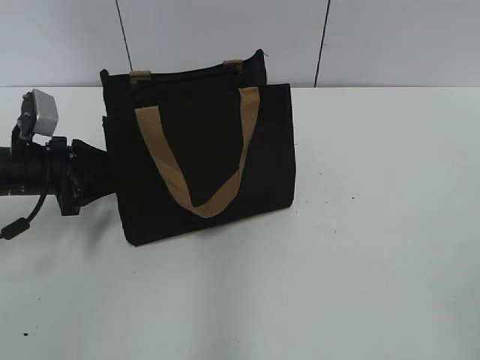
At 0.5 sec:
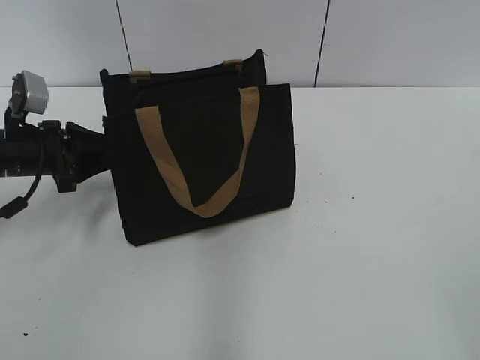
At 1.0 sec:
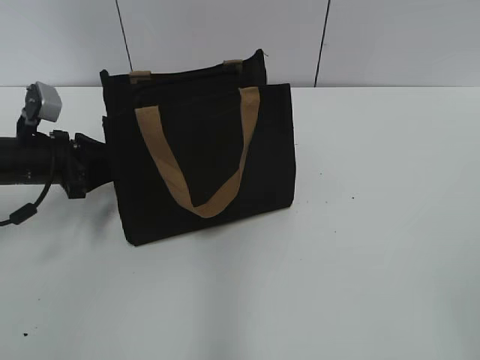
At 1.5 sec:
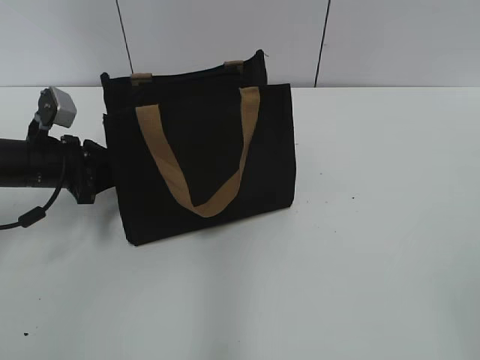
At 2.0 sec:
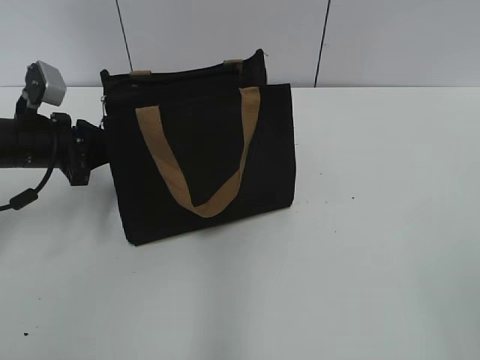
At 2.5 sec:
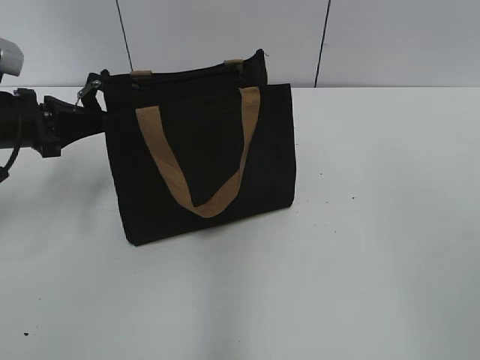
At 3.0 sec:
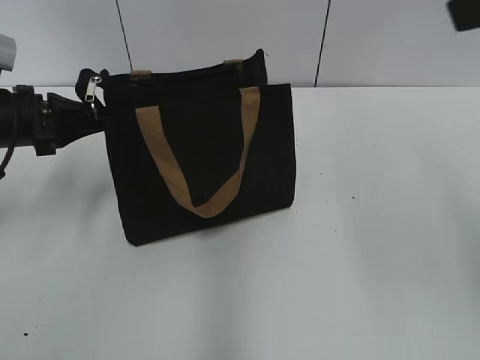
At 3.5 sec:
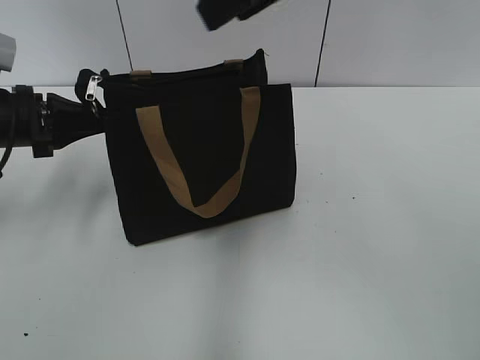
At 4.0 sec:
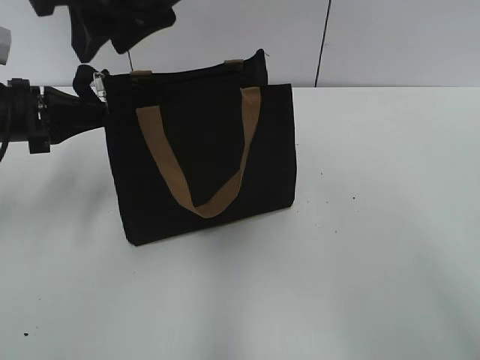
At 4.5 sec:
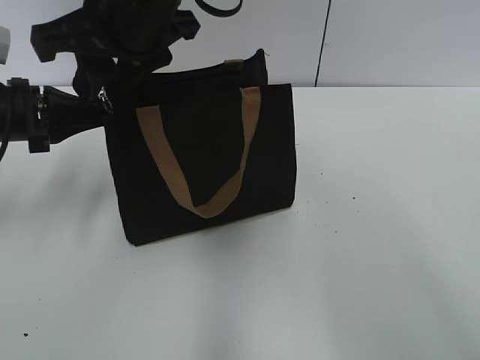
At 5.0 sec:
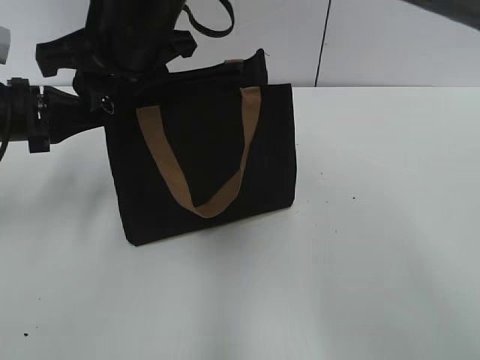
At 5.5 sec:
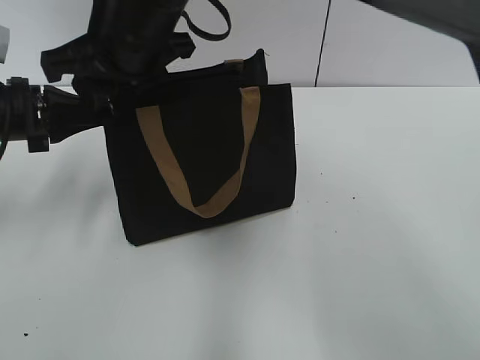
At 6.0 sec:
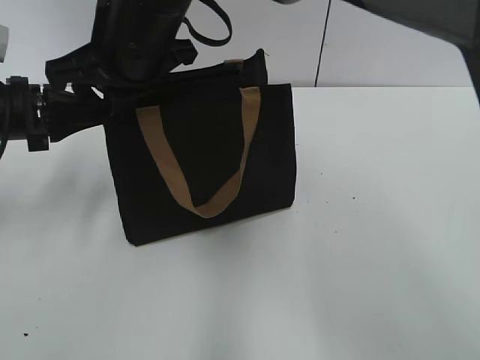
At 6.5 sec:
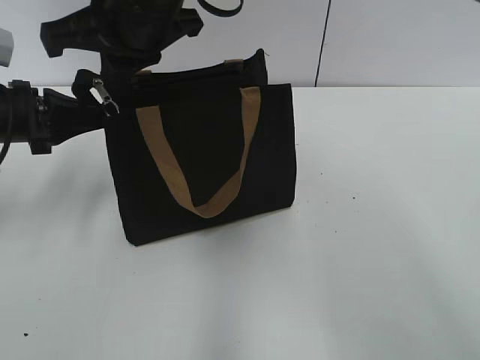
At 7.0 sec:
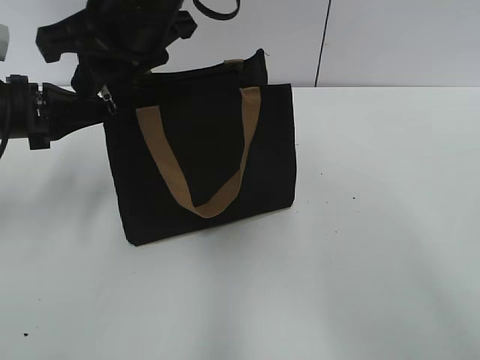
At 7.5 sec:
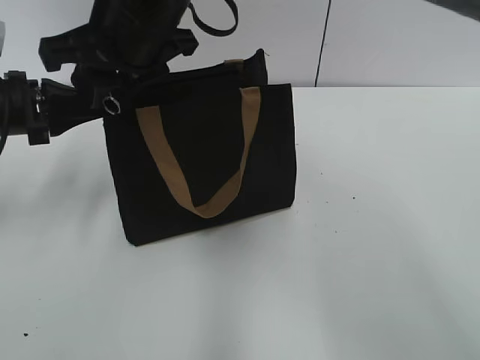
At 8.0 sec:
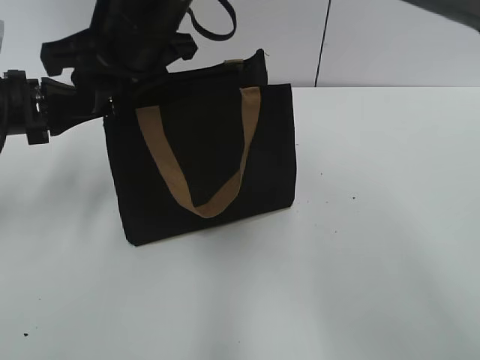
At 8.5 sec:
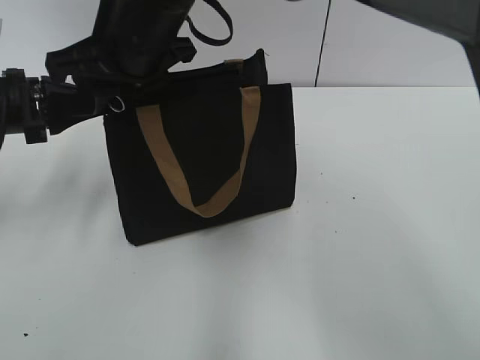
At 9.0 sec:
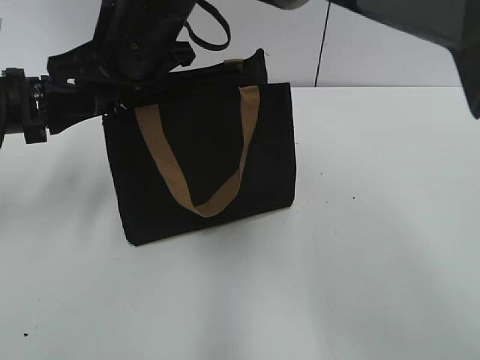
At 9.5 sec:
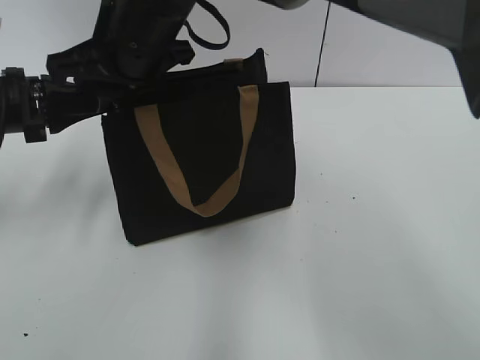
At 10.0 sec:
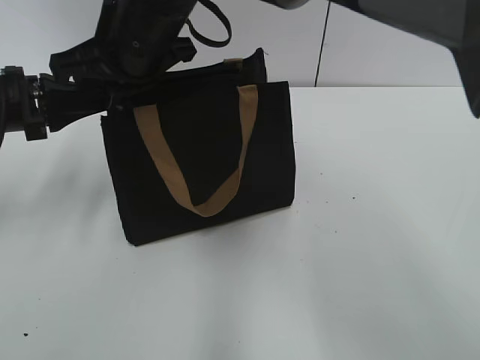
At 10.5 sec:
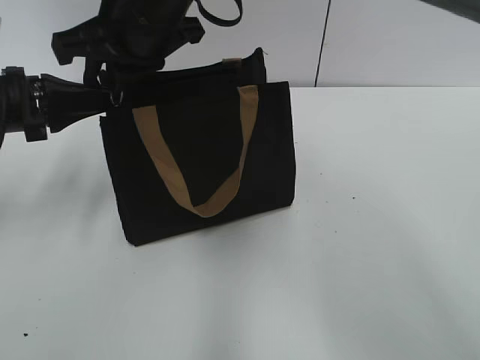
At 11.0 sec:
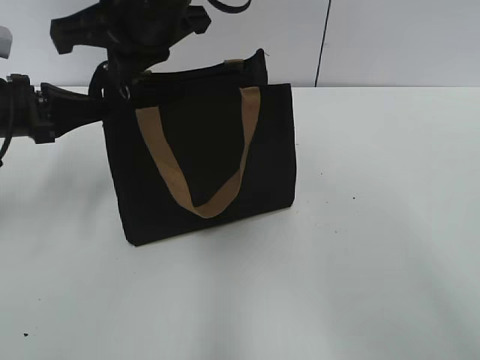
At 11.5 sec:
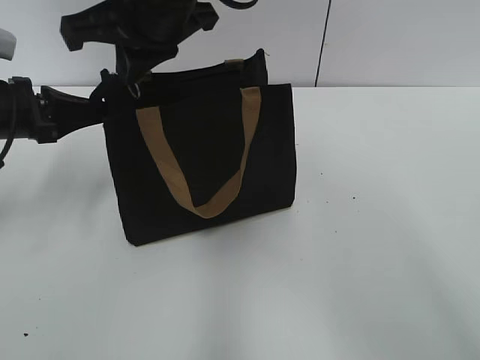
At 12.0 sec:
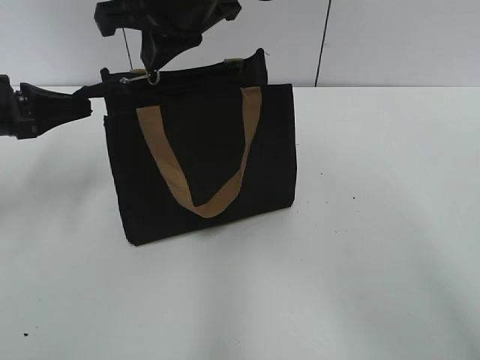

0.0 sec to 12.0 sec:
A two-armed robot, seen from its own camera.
0.0 sec to 2.0 sec: The left gripper closes its fingers.
2.0 sec to 4.0 sec: The left gripper shifts by roughly 5 cm, while the right gripper is displaced to the left and forward by about 50 cm, and closes up.
4.0 sec to 6.0 sec: The right gripper moves downward, some 5 cm, and closes up.
6.0 sec to 8.0 sec: The right gripper opens its fingers.
8.0 sec to 10.0 sec: The right gripper closes up.
10.0 sec to 12.0 sec: The right gripper shifts by about 5 cm.

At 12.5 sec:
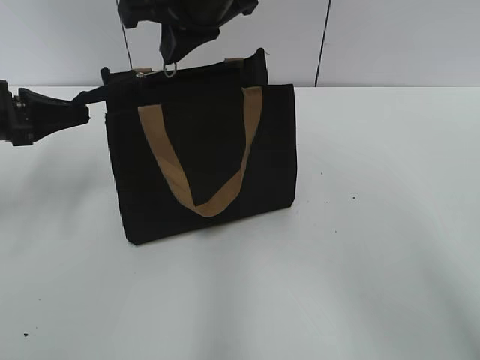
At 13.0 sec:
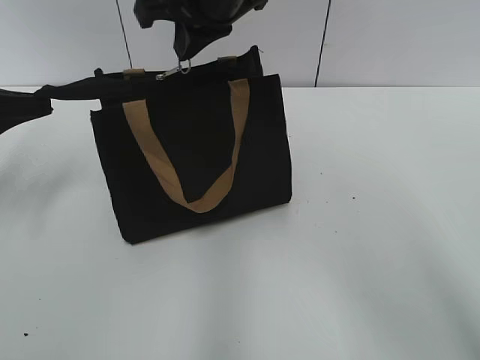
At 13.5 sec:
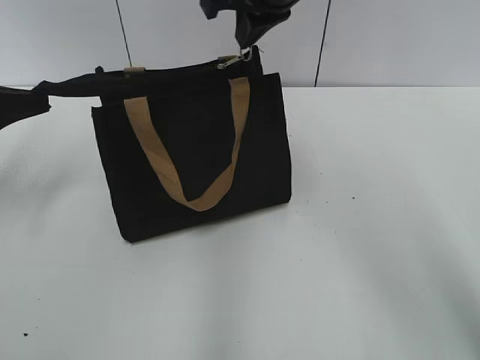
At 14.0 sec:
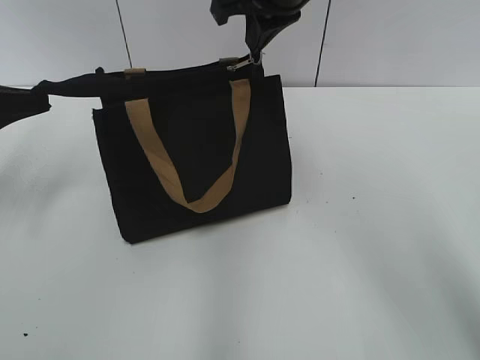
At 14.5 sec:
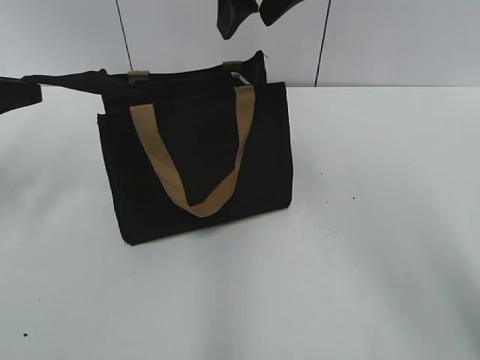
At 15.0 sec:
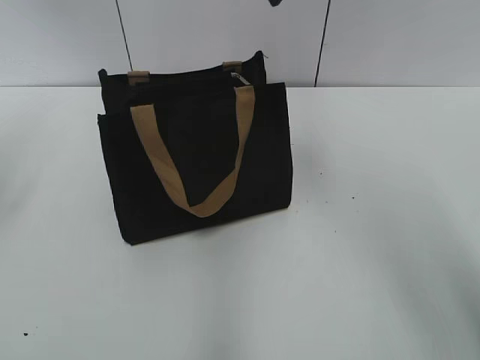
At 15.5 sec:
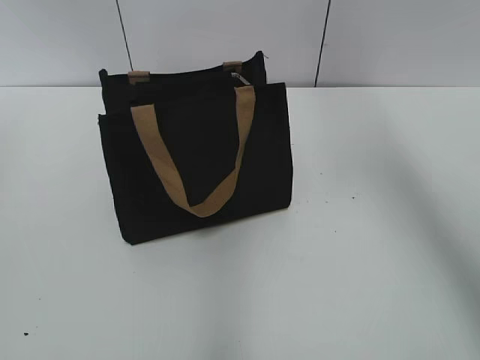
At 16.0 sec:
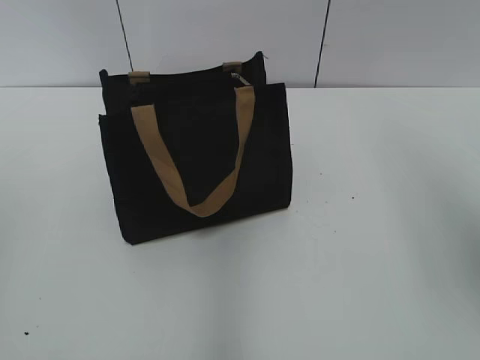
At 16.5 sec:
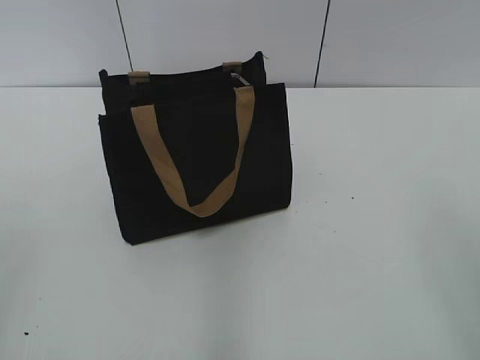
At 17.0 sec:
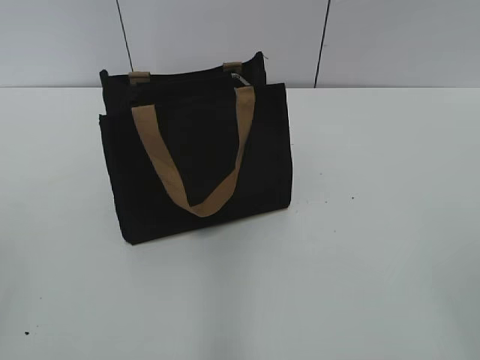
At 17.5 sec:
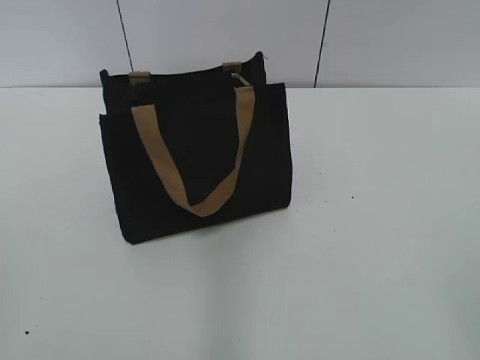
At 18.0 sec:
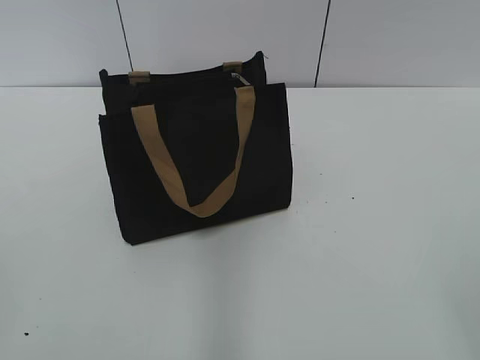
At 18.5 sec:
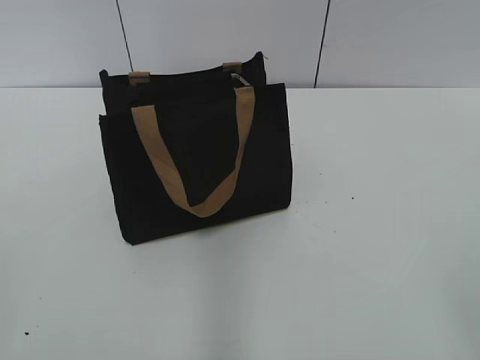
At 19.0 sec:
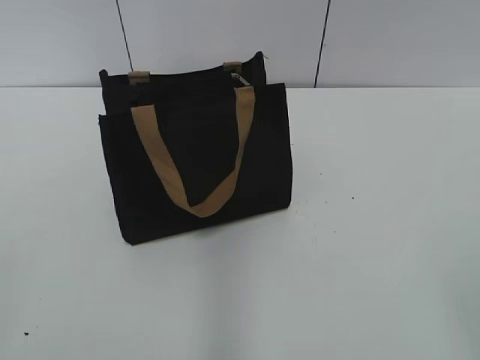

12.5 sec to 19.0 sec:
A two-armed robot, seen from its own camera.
12.5 sec to 14.5 sec: The left gripper shifts by roughly 5 cm, and opens its fingers; the right gripper moves to the right, approximately 5 cm, and opens its fingers.
14.5 sec to 17.0 sec: The left gripper heads backward, covering about 30 cm; the right gripper heads backward and to the right, covering some 50 cm.

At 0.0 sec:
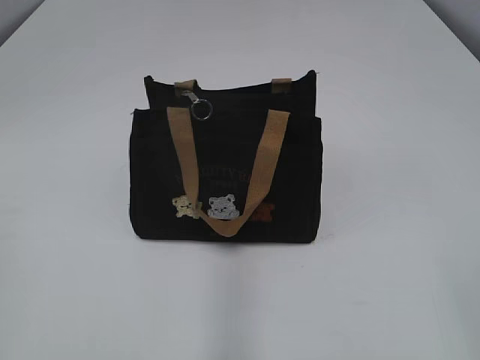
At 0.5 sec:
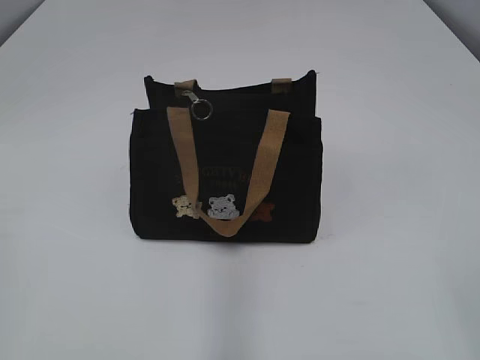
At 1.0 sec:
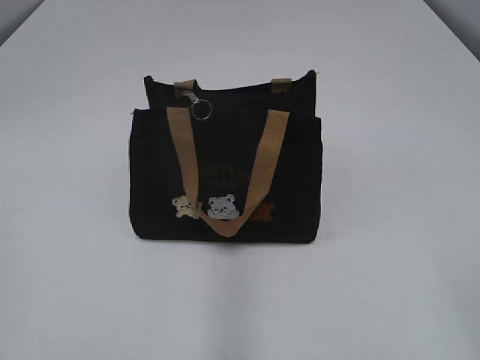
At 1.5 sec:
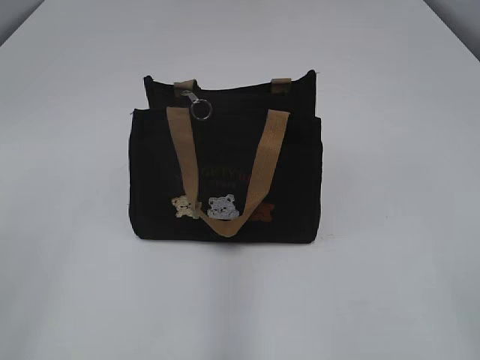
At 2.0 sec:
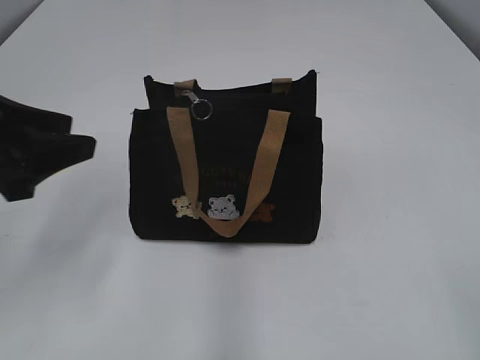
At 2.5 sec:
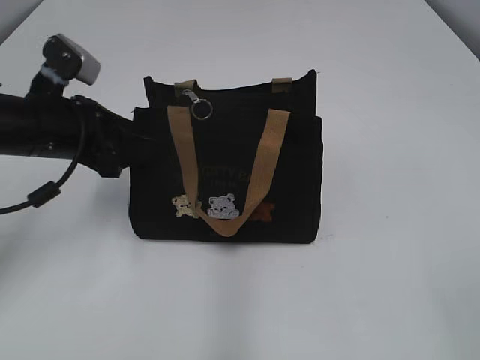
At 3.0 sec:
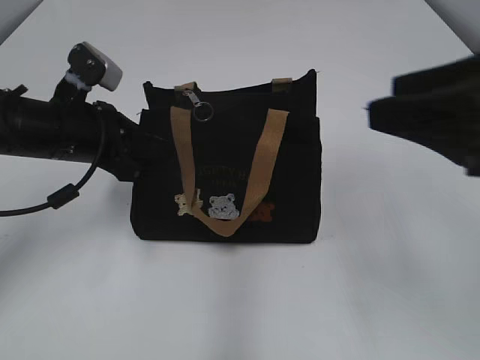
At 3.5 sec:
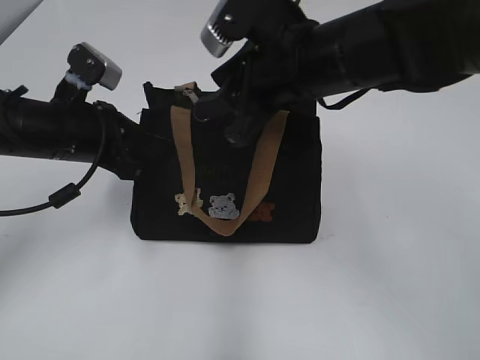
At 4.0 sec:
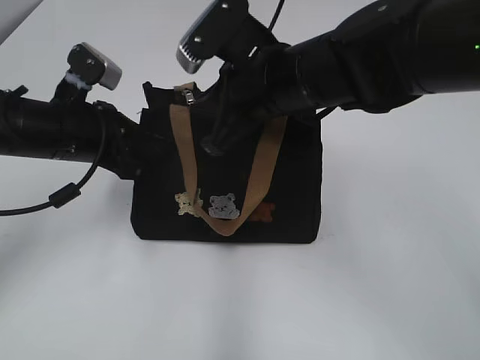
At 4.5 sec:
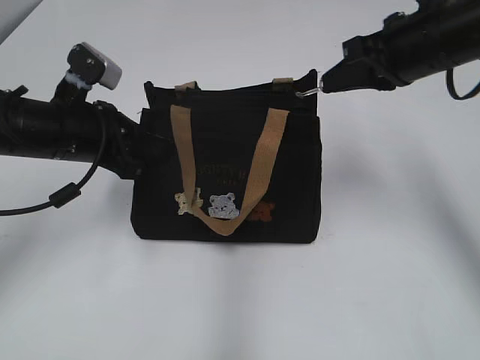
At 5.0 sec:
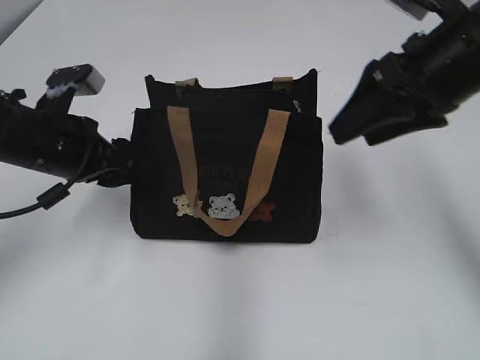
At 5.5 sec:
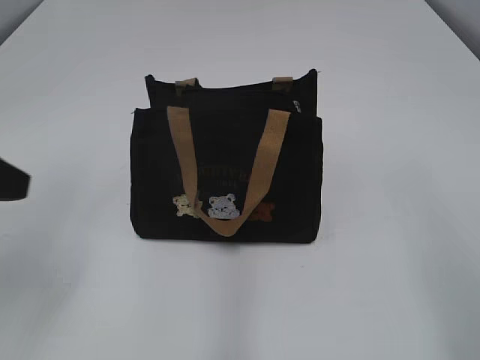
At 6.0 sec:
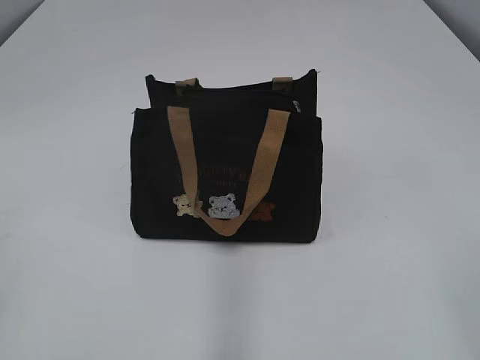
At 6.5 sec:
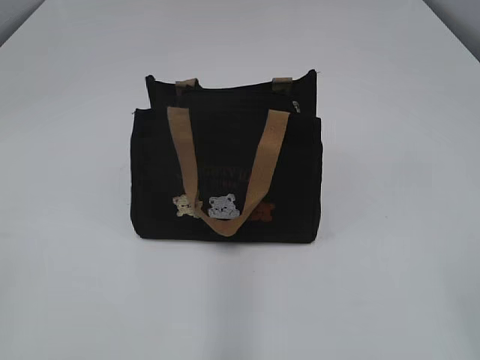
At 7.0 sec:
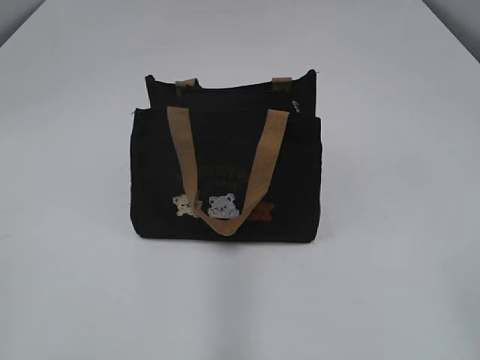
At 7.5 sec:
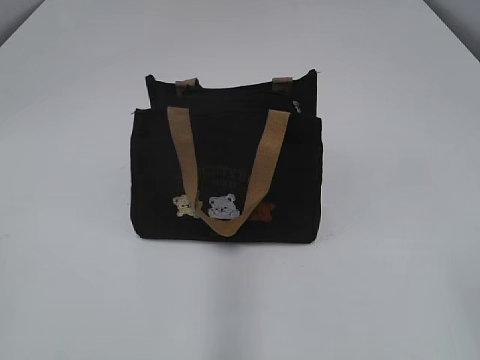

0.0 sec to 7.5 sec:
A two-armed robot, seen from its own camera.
Step, 0.0 sec to 4.5 sec: Pull open the zipper with your right hand.
2.0 sec to 4.0 sec: The left gripper shifts about 15 cm forward, downward and to the right, and closes up, while the right gripper moves forward and to the left, roughly 40 cm, and closes.
4.0 sec to 5.5 sec: The right gripper heads backward and to the right, covering approximately 30 cm, and opens its fingers, while the left gripper shifts roughly 15 cm backward, upward and to the left, and opens its fingers.
5.5 sec to 7.5 sec: The left gripper goes approximately 20 cm backward.
